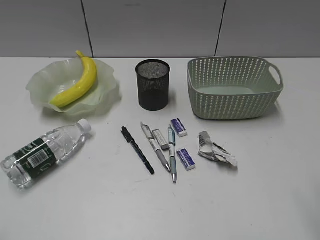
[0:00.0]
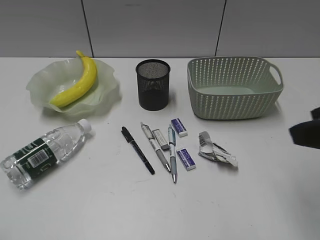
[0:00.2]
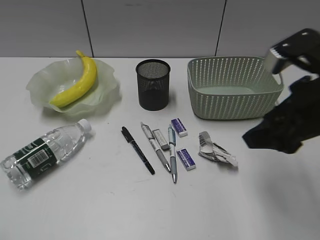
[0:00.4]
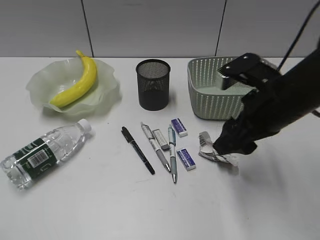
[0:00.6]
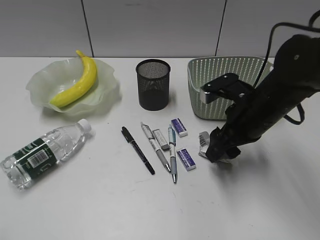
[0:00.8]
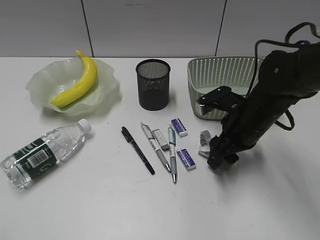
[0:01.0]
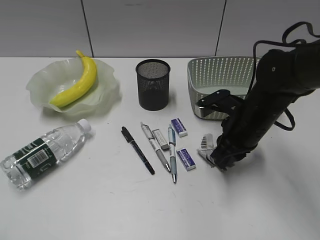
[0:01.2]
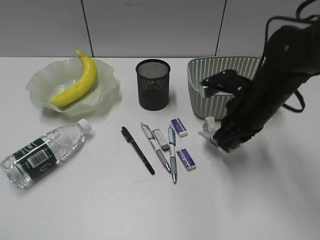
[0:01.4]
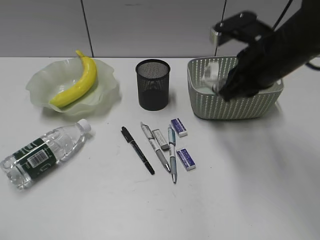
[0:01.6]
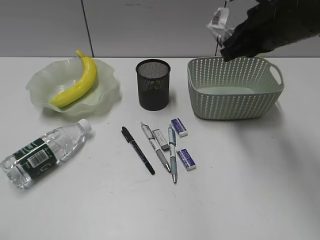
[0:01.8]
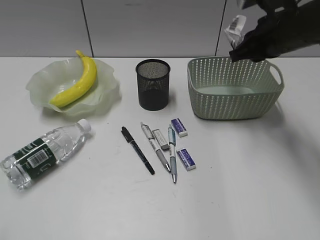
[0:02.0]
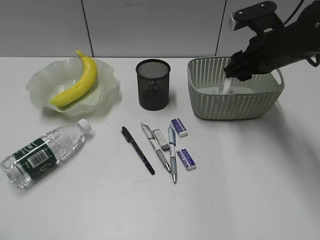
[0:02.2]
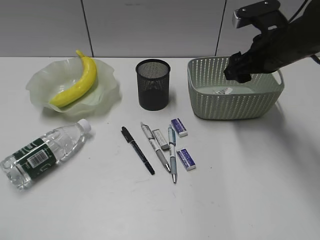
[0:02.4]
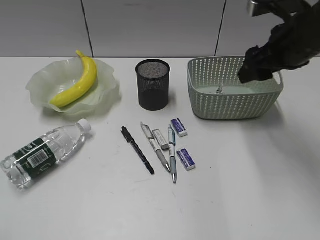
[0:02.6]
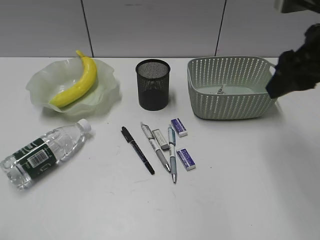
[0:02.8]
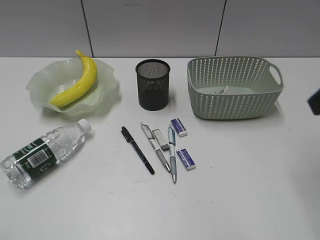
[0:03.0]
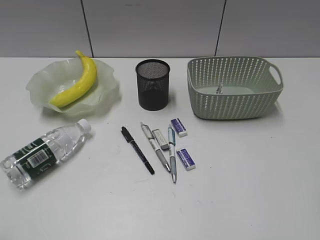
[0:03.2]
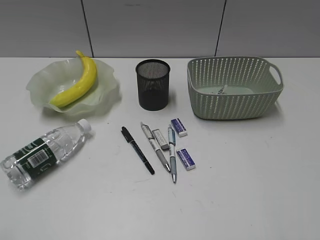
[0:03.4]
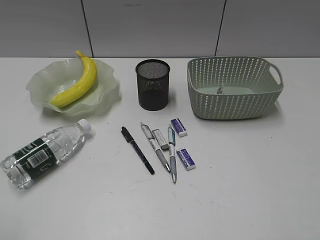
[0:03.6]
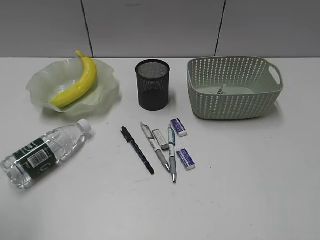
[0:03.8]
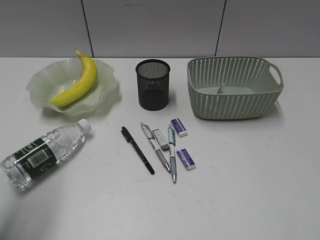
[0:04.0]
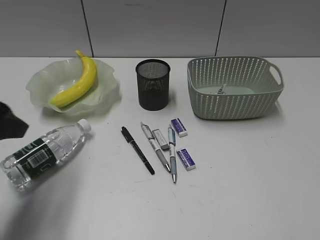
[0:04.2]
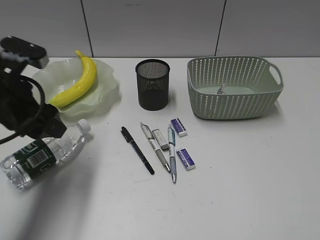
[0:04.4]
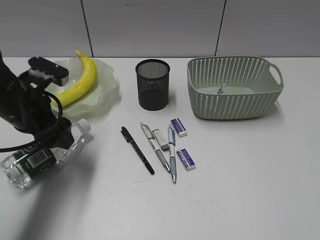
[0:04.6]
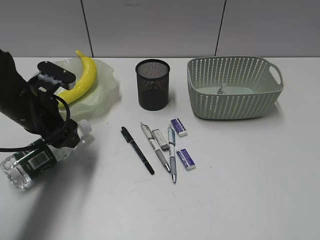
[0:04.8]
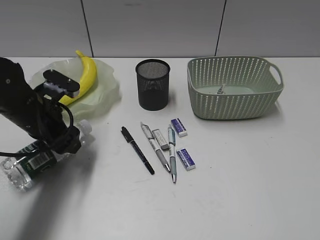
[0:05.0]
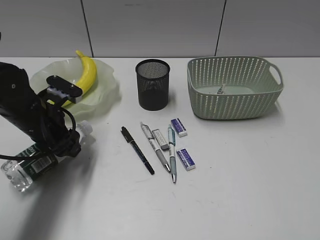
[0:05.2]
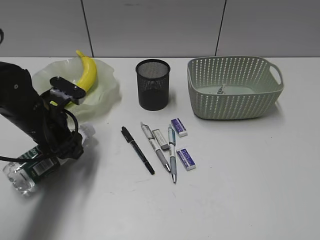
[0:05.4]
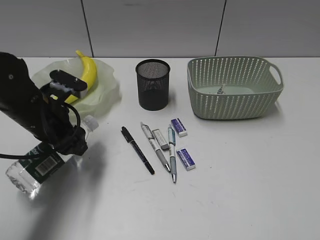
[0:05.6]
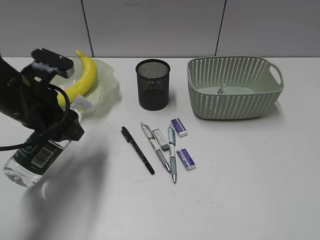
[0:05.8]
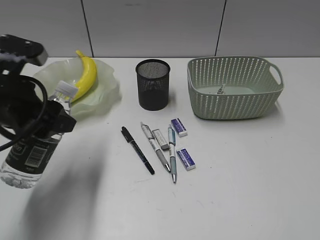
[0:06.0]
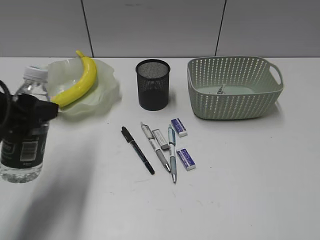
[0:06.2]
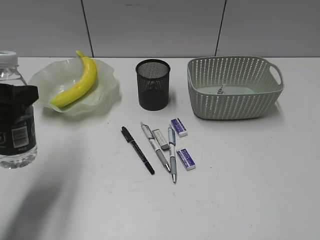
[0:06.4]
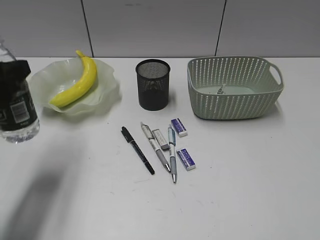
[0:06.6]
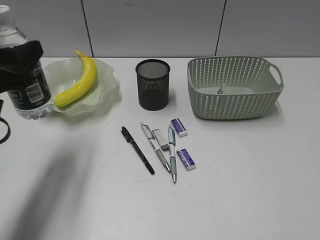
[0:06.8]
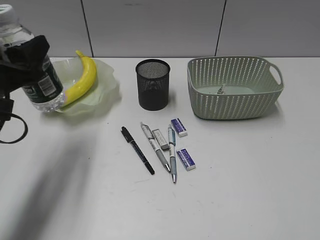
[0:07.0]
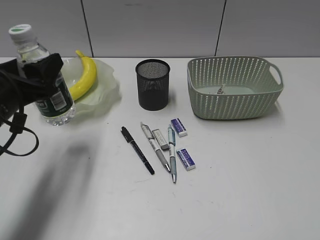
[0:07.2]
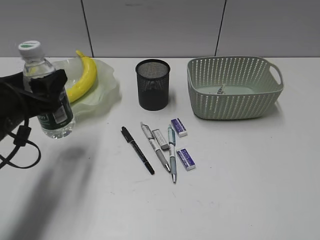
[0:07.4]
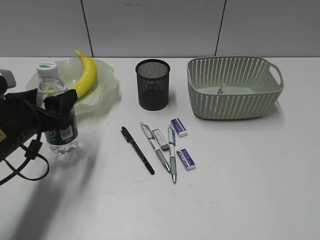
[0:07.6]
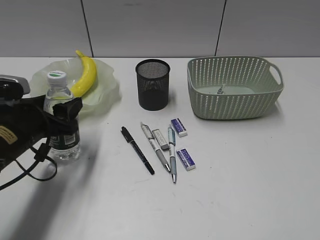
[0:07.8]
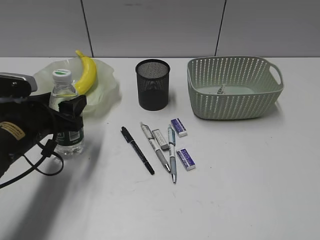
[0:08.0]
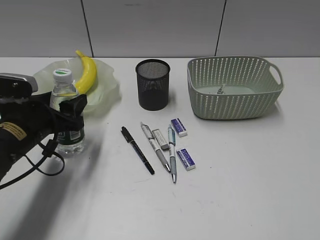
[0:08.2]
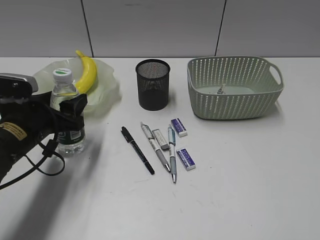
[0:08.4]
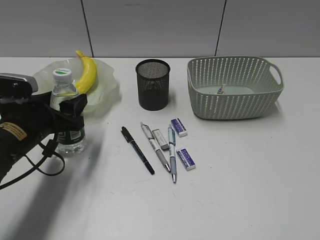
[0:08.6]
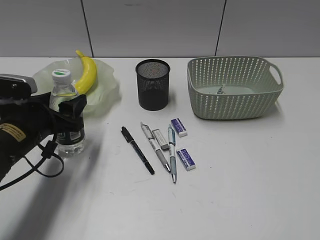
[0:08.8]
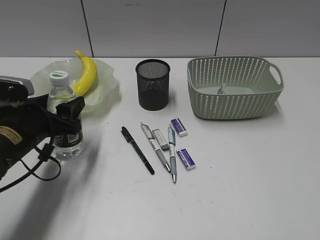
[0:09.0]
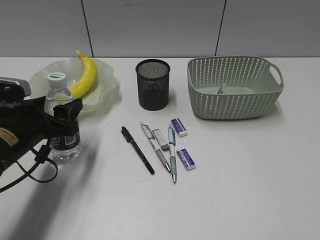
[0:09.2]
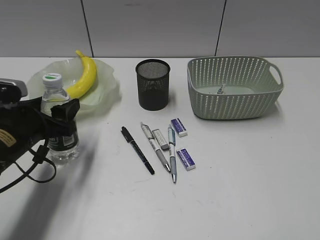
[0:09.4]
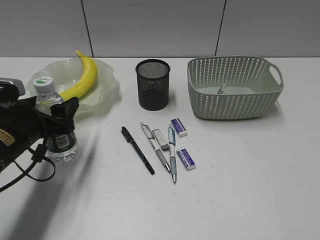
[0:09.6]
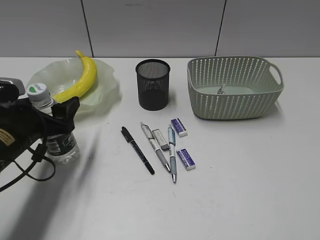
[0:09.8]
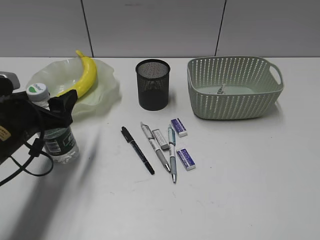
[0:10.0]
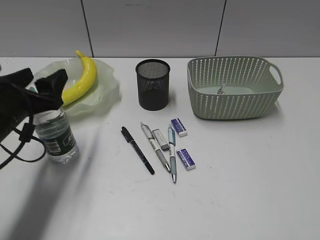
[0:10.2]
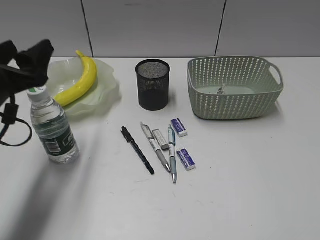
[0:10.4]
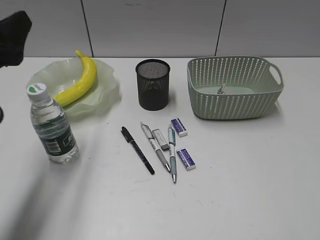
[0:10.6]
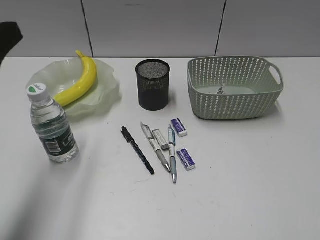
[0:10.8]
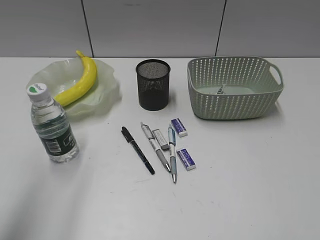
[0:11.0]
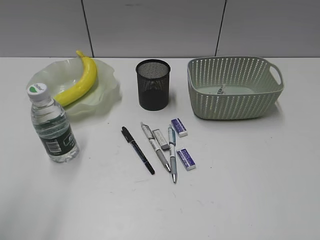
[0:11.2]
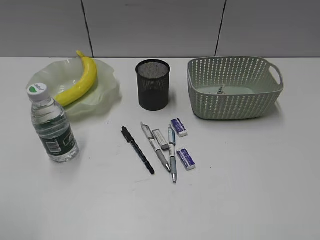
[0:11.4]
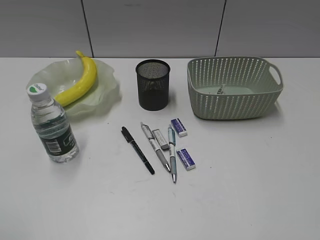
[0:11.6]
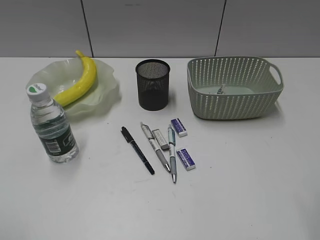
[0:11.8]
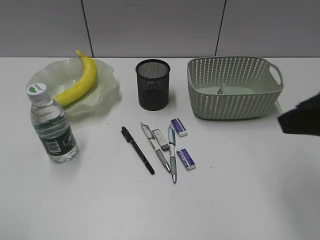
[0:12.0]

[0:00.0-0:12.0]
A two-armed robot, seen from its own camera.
Step, 0:01.4 to 0:02.2: Place the waste paper in the basket with right gripper.
Step, 0:02.4 to 0:05.2: Grasp the bottle with left gripper.
Step, 0:05.4 to 0:10.2: Stand the bottle with left gripper.
0:00.0 to 0:01.6: The right gripper moves forward and to the left, about 25 cm, and closes.
0:01.6 to 0:03.0: The right gripper moves backward, upward and to the right, roughly 15 cm, and opens up.
0:03.0 to 0:04.4: The left gripper moves forward, roughly 25 cm.
0:04.4 to 0:06.0: The left gripper travels downward and back again, roughly 10 cm each way.
0:06.0 to 0:07.6: The left gripper goes roughly 5 cm downward.
0:07.6 to 0:09.0: The grippers stay close to where they were, moving slightly.
0:09.0 to 0:10.4: The left gripper shifts approximately 10 cm upward.
0:10.4 to 0:12.0: The left gripper moves backward and upward, approximately 25 cm, while the right gripper moves forward and to the left, approximately 15 cm.

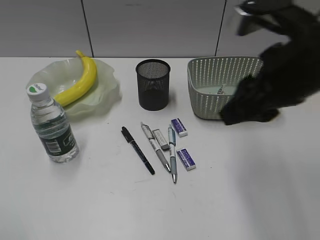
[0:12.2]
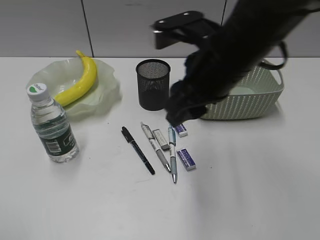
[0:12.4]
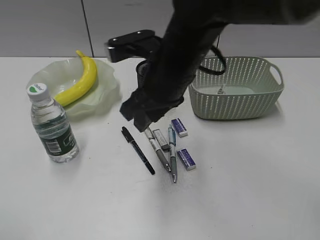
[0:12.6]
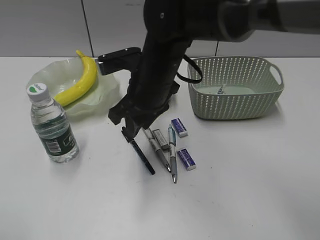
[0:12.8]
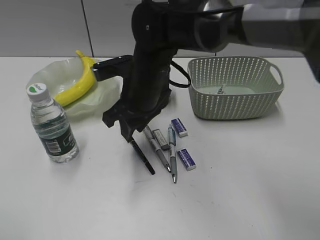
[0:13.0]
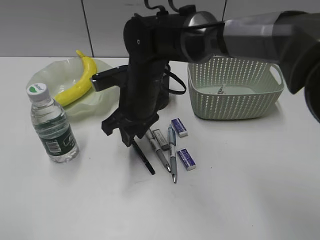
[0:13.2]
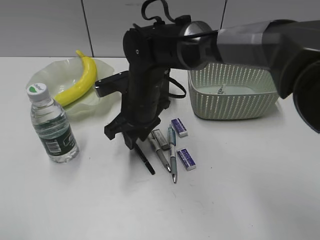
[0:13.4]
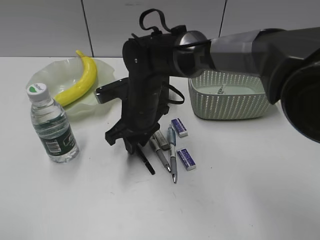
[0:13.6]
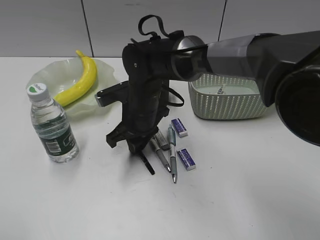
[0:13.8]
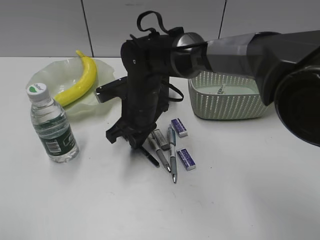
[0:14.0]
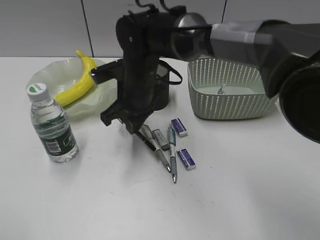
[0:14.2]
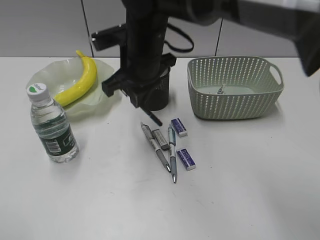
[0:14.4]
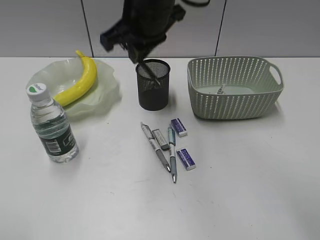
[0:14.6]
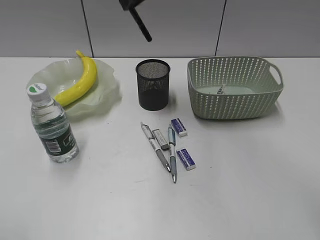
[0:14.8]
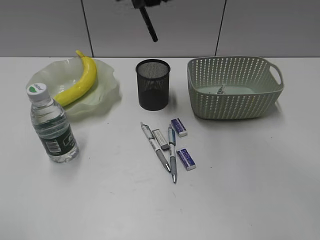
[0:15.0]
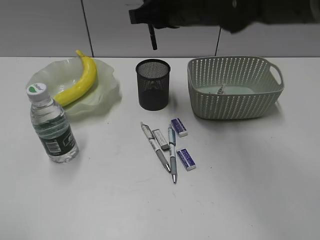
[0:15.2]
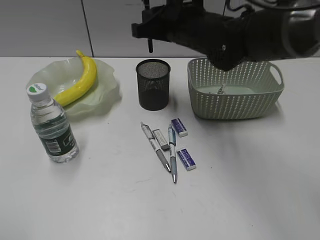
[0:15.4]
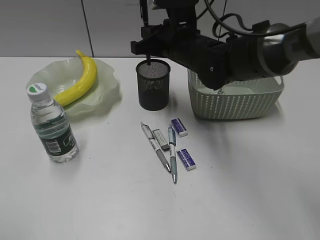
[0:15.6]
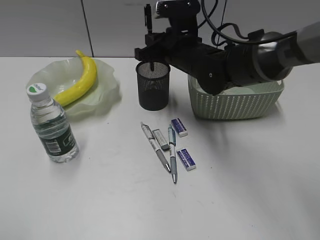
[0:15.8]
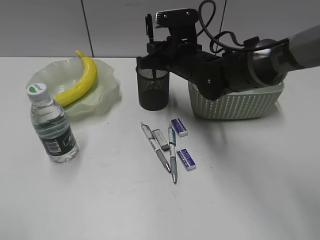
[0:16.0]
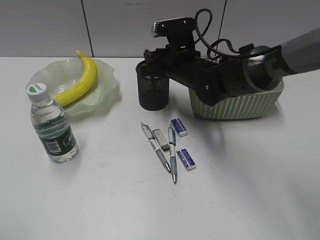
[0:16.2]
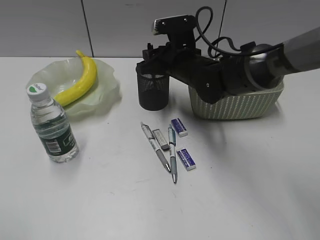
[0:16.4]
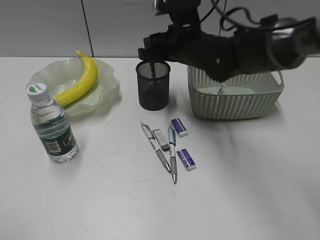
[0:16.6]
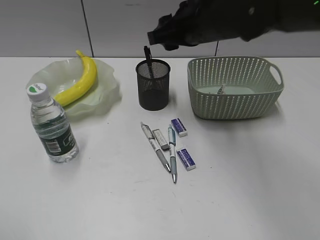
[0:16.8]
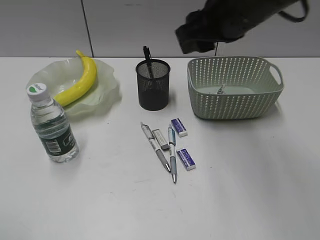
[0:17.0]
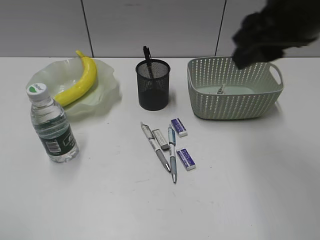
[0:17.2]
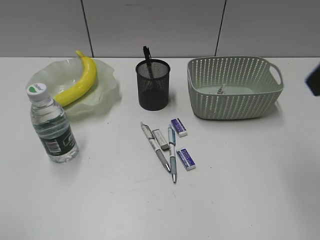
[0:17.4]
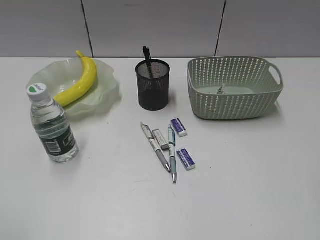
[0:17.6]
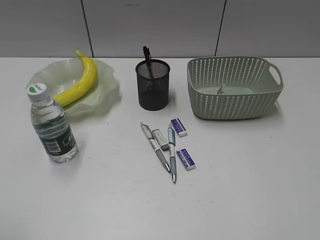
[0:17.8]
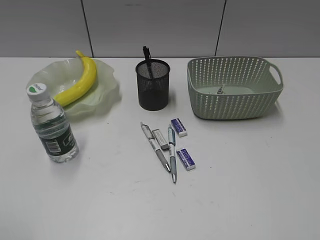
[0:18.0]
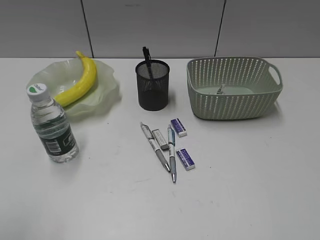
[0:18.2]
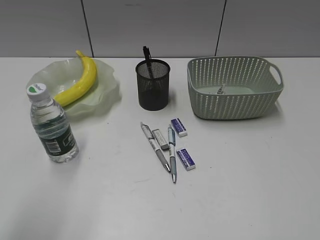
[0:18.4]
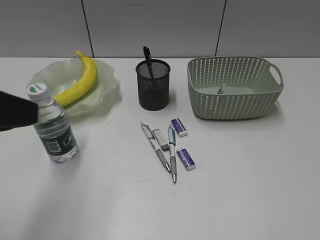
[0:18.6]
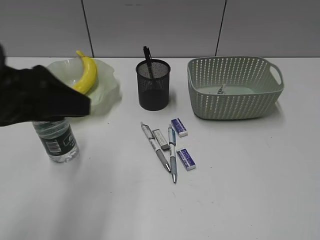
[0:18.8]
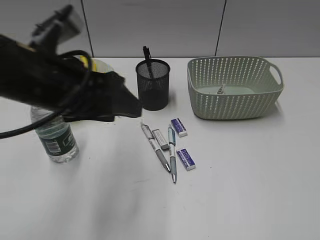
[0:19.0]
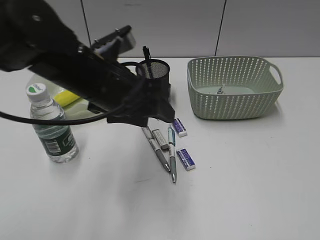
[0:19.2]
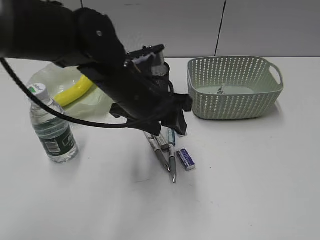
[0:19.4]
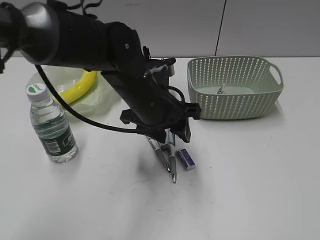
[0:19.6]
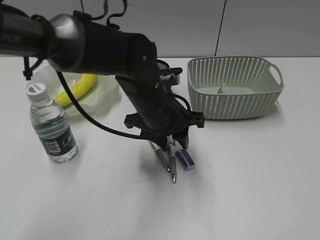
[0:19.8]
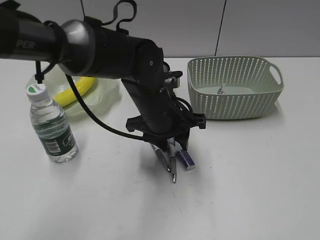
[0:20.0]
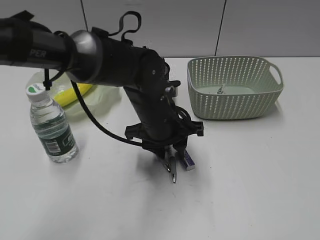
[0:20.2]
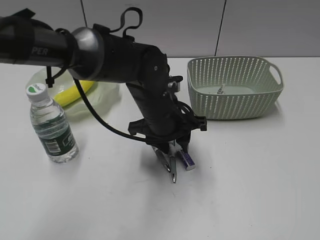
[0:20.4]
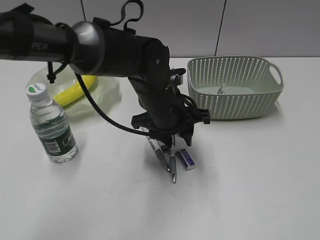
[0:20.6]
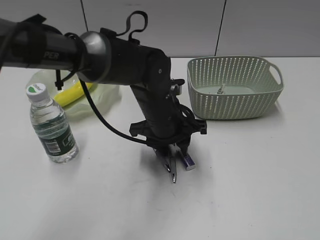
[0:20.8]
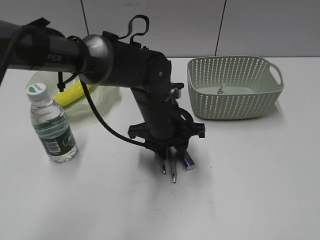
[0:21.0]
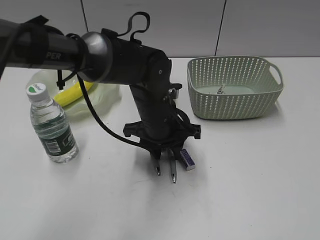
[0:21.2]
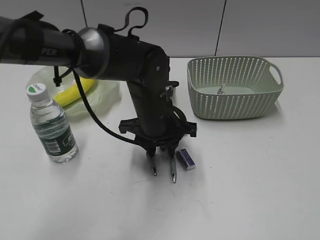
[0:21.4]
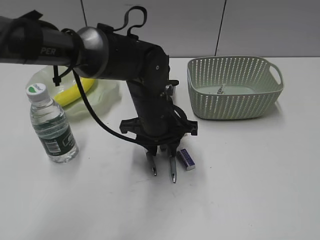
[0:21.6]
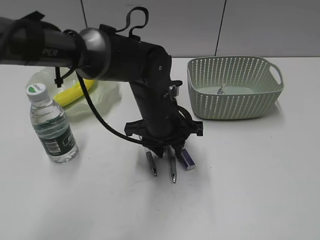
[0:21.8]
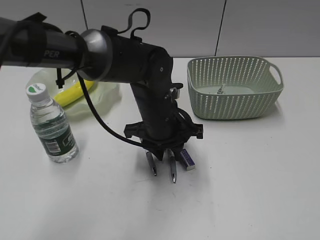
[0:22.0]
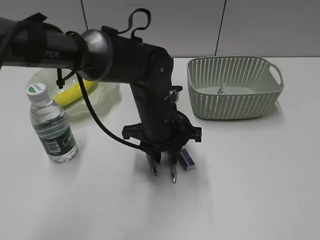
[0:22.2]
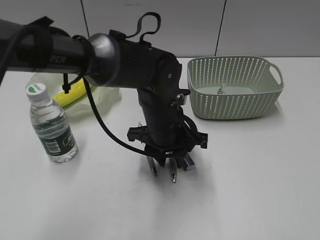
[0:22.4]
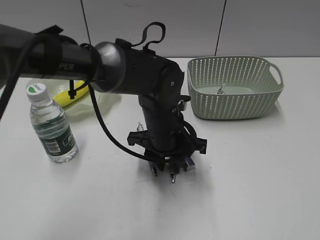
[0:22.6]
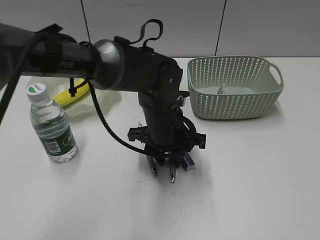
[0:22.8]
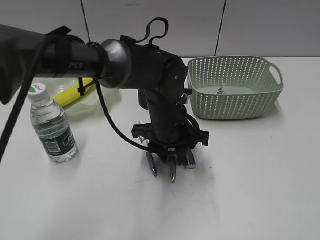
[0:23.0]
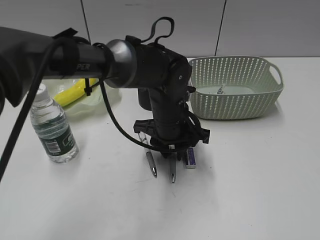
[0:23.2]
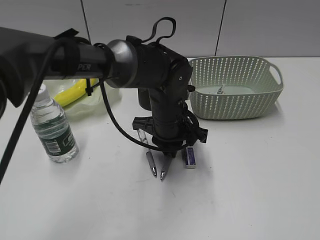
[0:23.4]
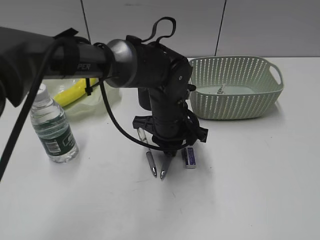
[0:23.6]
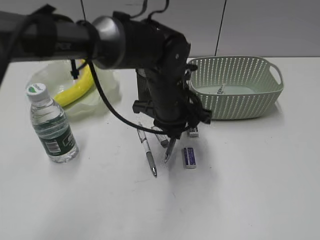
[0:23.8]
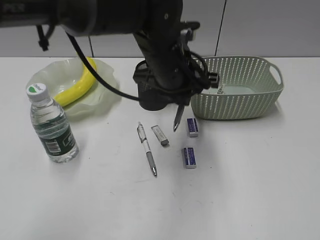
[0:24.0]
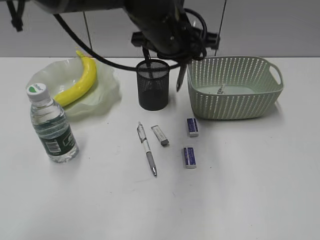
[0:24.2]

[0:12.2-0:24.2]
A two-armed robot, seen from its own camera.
Step, 0:14.0 to 0:16.4: Place the black pen in pen holder with right gripper.
Step, 0:16.6 to 0:23.4: Grasp the blue pen with left gripper.
0:12.2 to 0:13.8: The right gripper heads to the left, downward and forward, covering approximately 30 cm, and closes.
0:13.8 to 0:15.2: The right gripper moves upward and to the right, some 20 cm.
0:15.2 to 0:16.6: The right gripper shifts roughly 10 cm downward, and opens up.
0:16.6 to 0:18.2: The right gripper travels backward and to the right by roughly 50 cm.
0:18.2 to 0:19.8: The left gripper goes about 40 cm to the right, forward and downward.
0:19.8 to 0:22.6: The grippers move only a little.
0:22.6 to 0:24.2: The left gripper heads upward, covering about 15 cm, and closes up.
